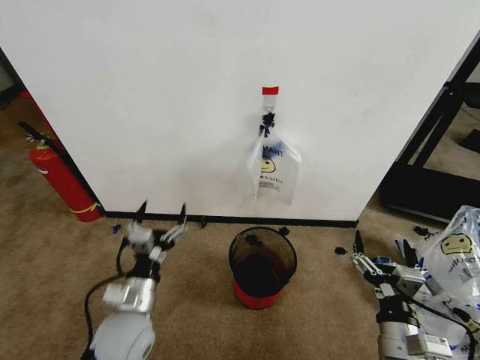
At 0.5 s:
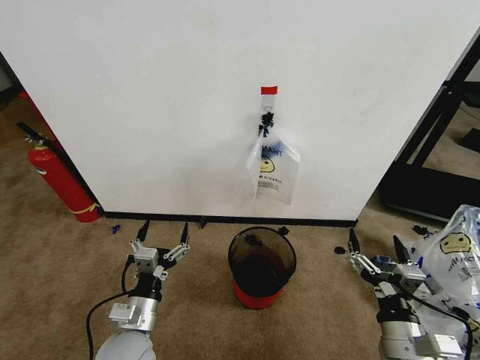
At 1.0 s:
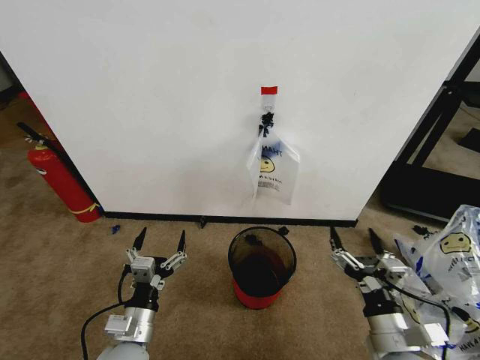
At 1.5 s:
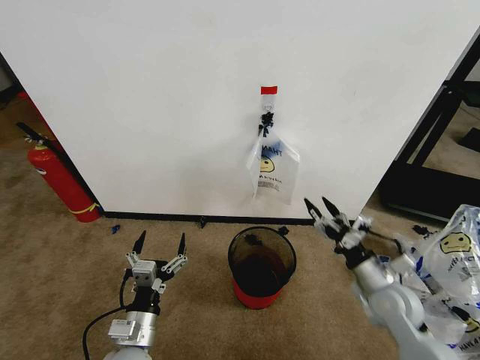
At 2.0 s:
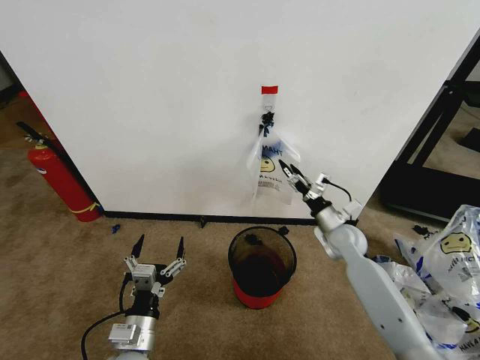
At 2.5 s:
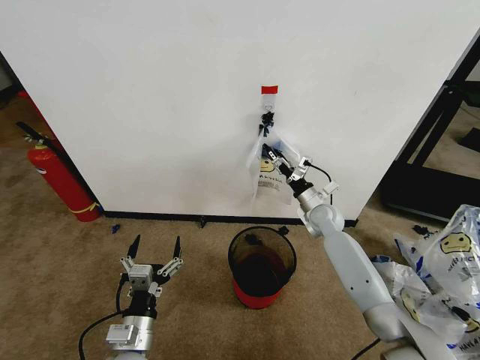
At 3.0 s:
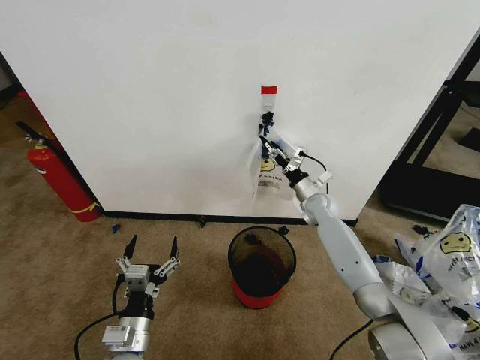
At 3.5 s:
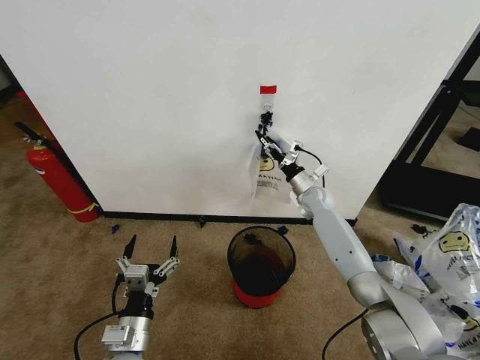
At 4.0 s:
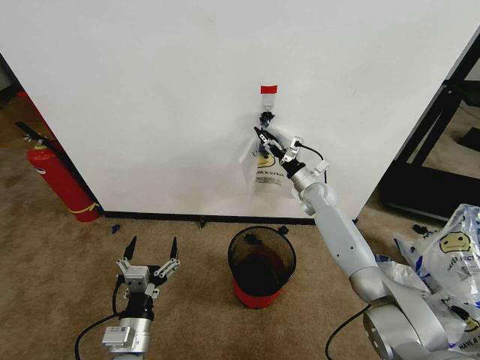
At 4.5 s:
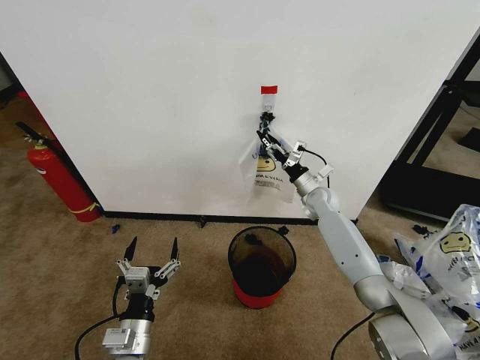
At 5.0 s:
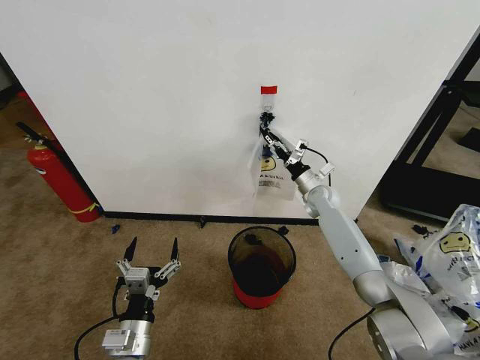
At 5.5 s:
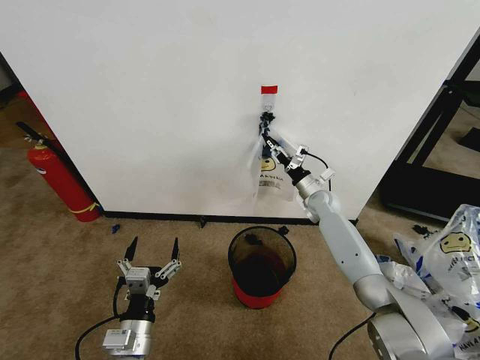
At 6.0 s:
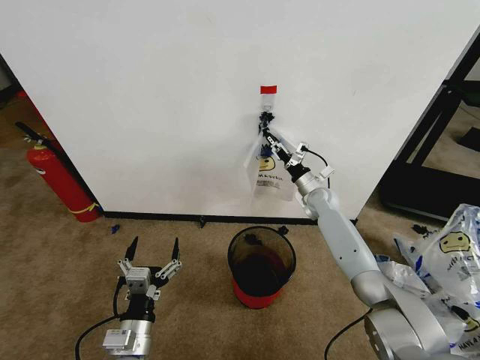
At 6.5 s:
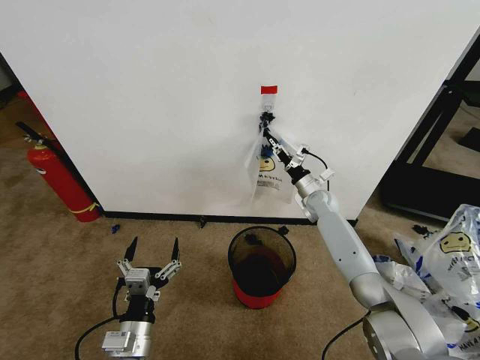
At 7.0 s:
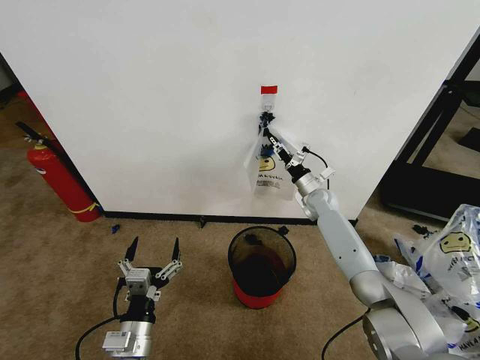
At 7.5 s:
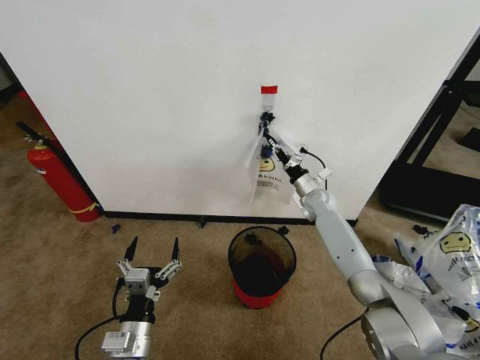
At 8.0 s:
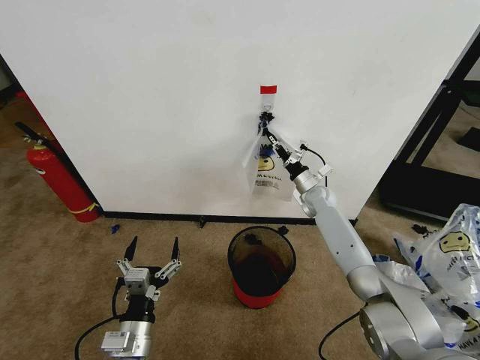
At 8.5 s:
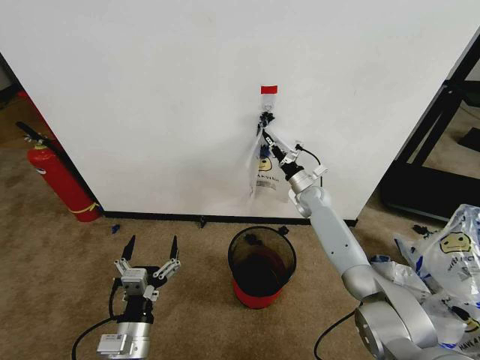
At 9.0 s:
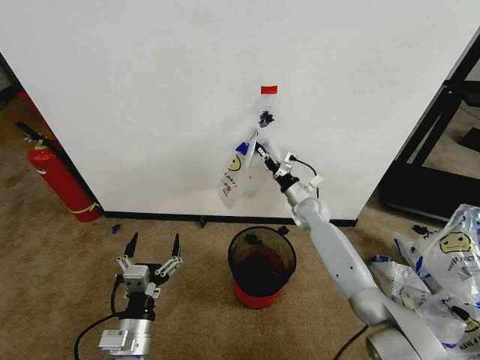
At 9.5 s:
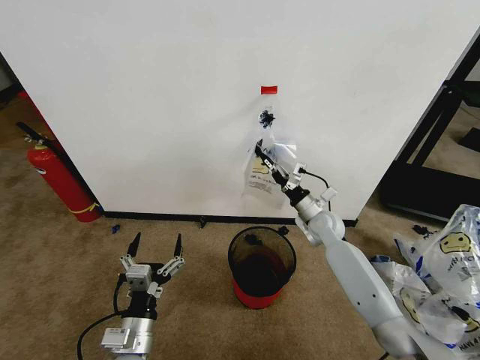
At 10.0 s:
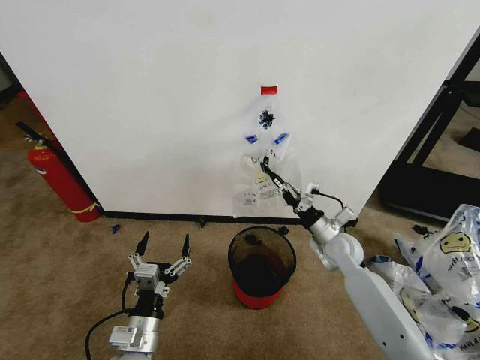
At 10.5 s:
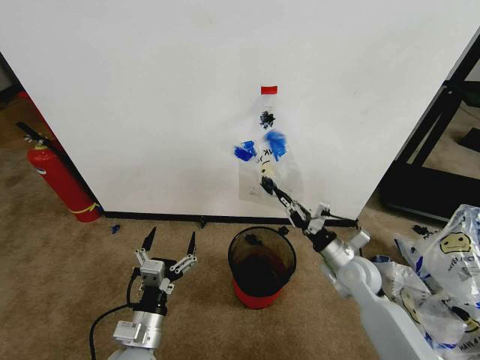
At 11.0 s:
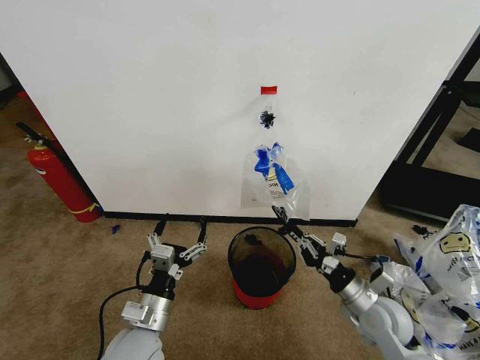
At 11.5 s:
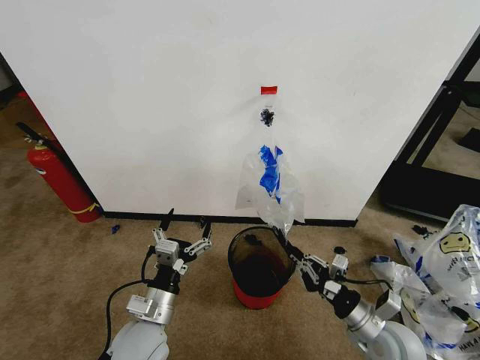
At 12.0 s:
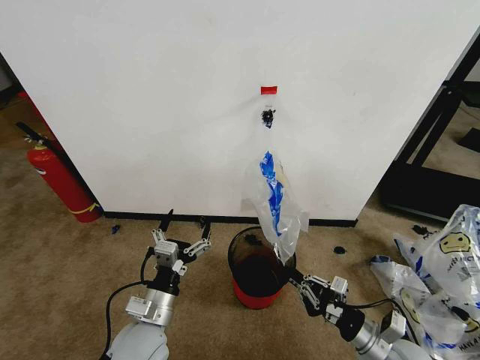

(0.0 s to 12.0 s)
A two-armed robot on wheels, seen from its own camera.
Task of the whole recording: Pick up the garbage bag from the wall and place it over the trash bin.
2.0 s - 4.0 s: The right gripper shifts approximately 15 cm forward.
4.0 s - 6.0 s: The right gripper closes up.
6.0 s - 8.0 s: The right gripper closes up.
8.0 s - 10.0 s: The right gripper is displaced backward by some 15 cm.
10.0 s - 12.0 s: The right gripper shifts approximately 25 cm backward. Meanwhile the left gripper shifts by approximately 5 cm.

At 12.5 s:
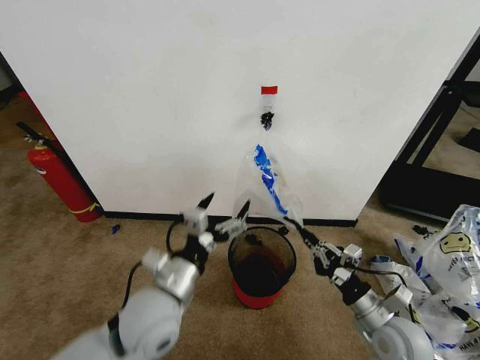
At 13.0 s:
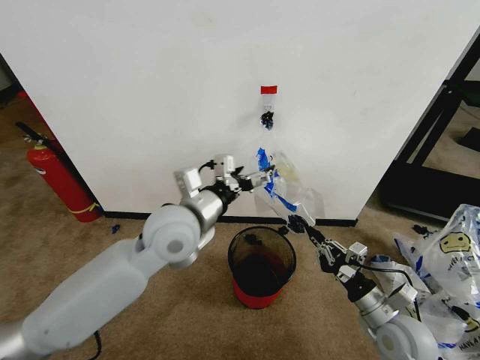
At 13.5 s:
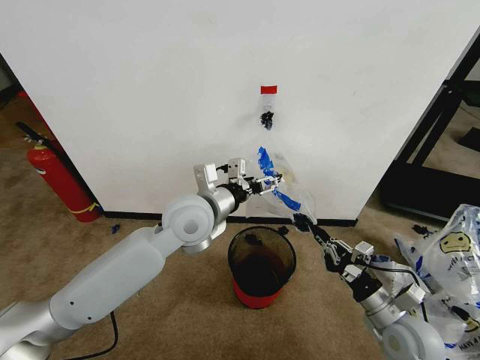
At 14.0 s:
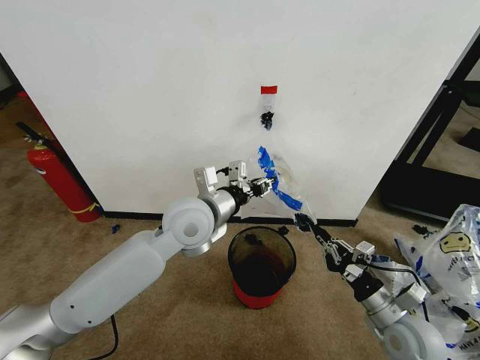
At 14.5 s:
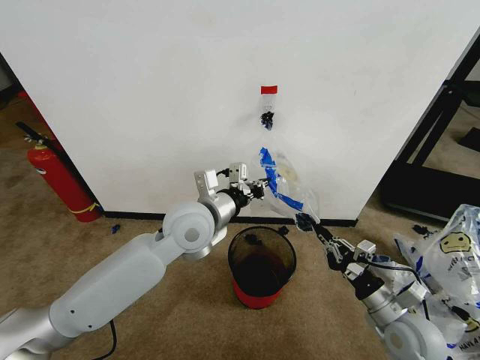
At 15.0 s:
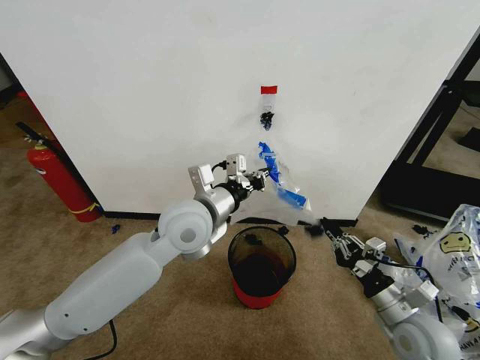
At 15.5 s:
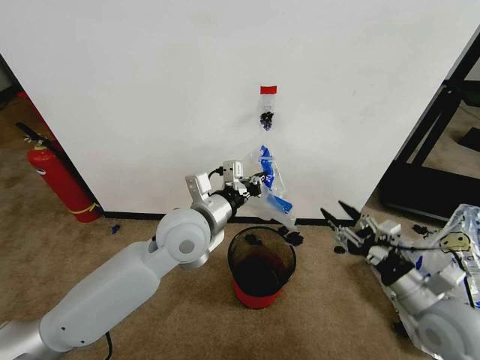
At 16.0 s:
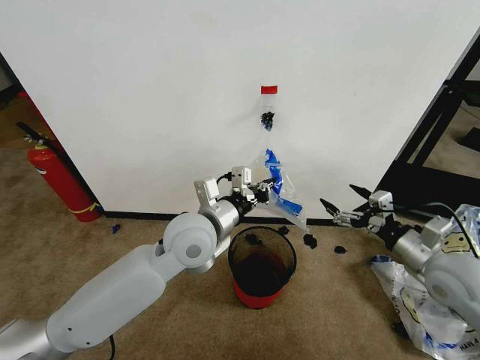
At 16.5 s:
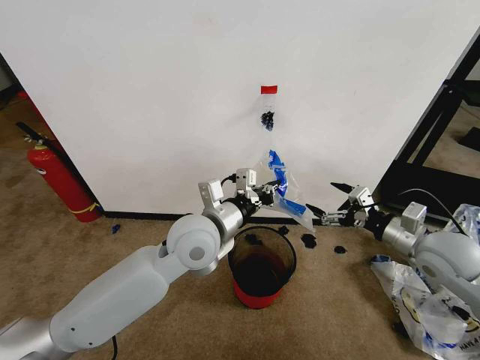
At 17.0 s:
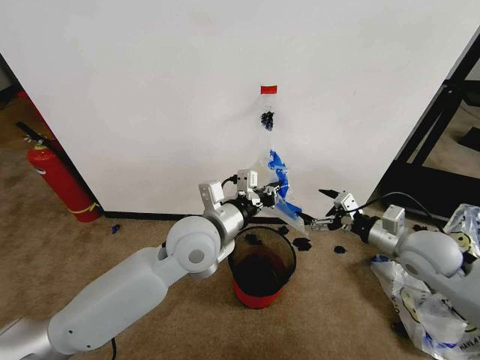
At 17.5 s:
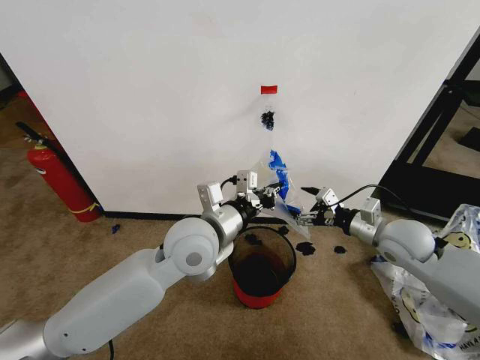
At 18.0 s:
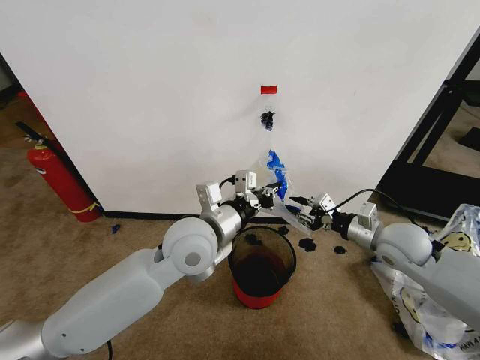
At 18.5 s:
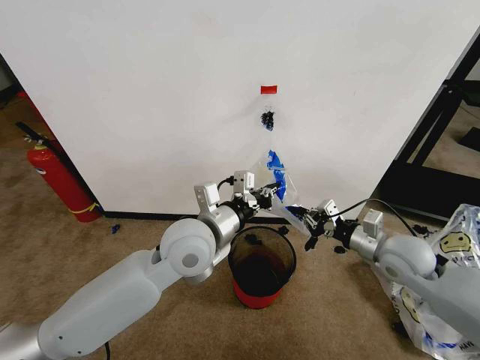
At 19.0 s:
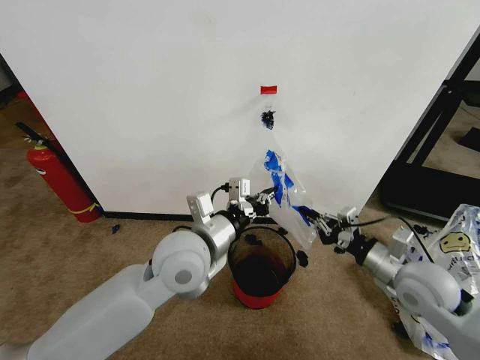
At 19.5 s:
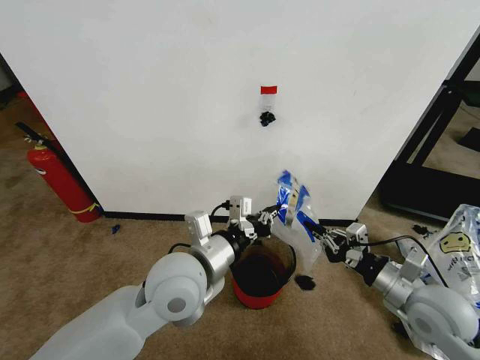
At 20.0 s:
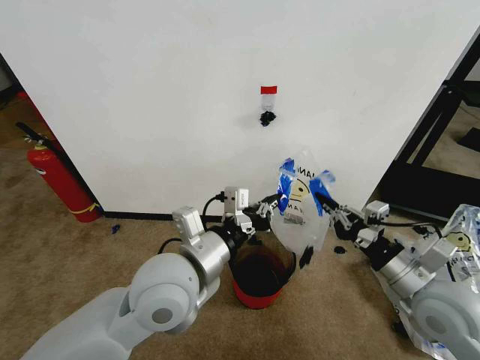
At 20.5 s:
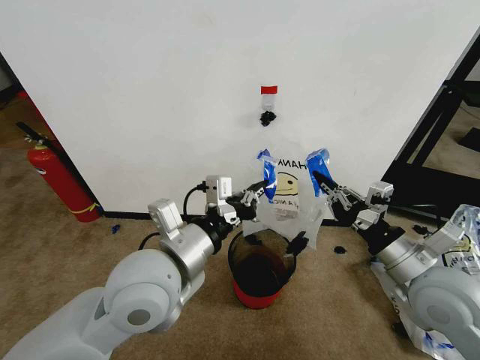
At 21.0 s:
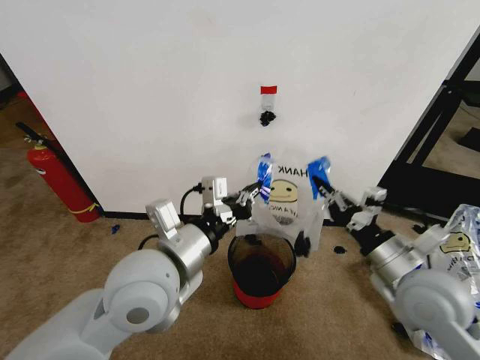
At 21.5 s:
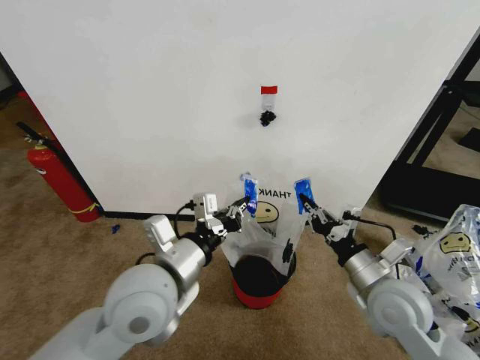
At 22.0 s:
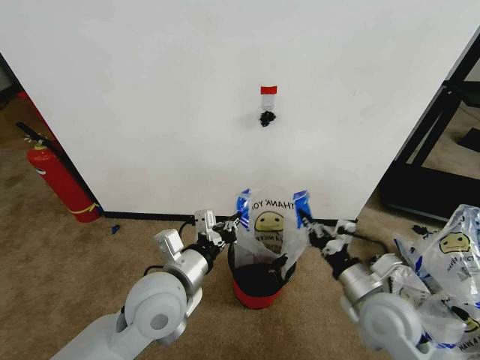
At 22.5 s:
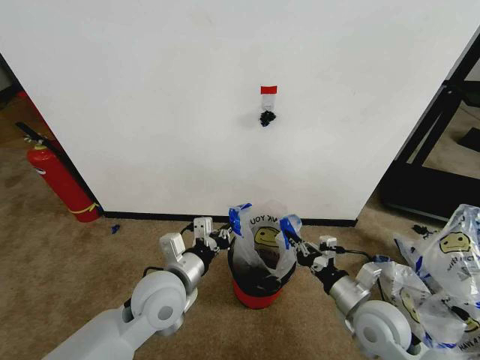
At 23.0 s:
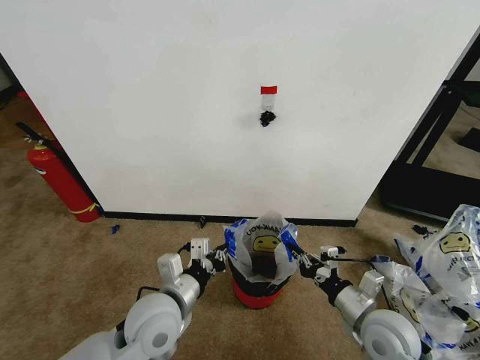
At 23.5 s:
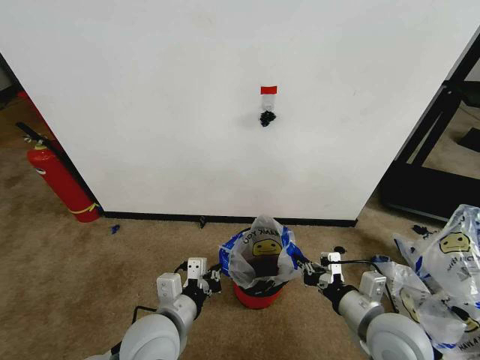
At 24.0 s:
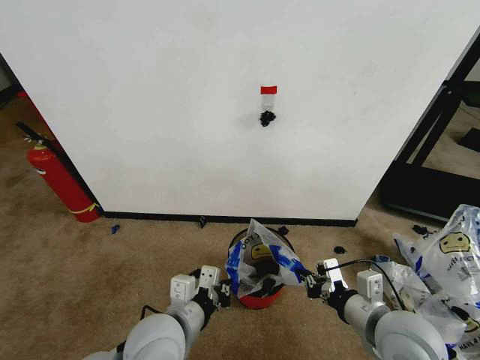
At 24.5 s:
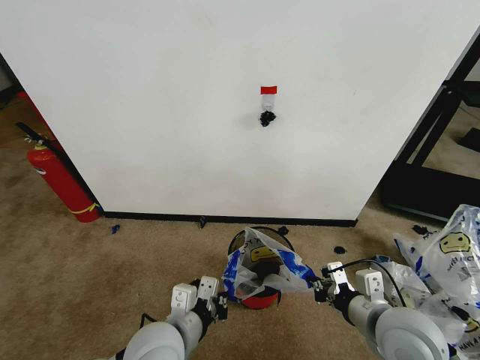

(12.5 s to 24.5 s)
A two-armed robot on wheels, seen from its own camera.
Task of the whole recording: Pick up the garbage bag from the wall and place it over the trash bin.
12.5 s - 14.5 s: The left gripper travels forward and upward by approximately 20 cm, and closes up.
14.5 s - 16.5 s: The right gripper goes some 15 cm upward and forward, and opens up.
16.5 s - 18.5 s: The right gripper moves approximately 5 cm, and closes.
18.5 s - 20.5 s: The right gripper is displaced backward and upward by roughly 15 cm, while the left gripper goes approximately 10 cm backward.
20.5 s - 22.5 s: Both grippers travel together downward, some 15 cm.
22.5 s - 24.5 s: The left gripper goes about 10 cm backward, while the right gripper heads upward, covering roughly 10 cm.

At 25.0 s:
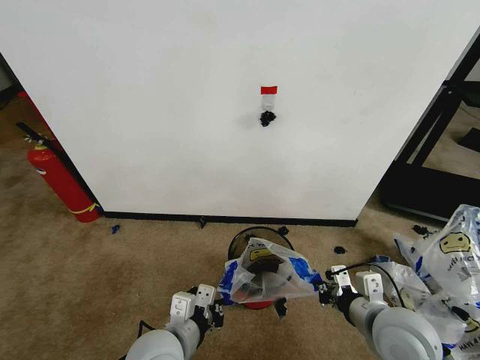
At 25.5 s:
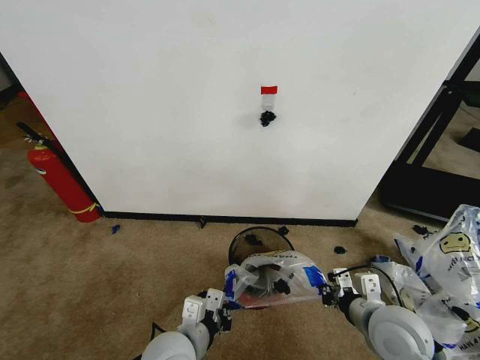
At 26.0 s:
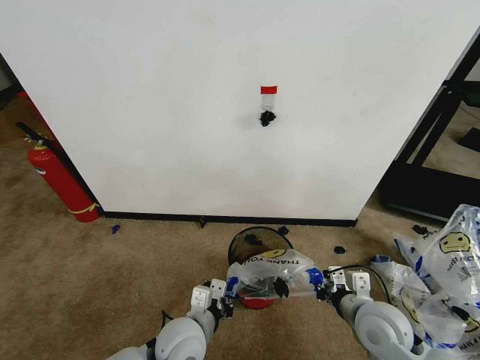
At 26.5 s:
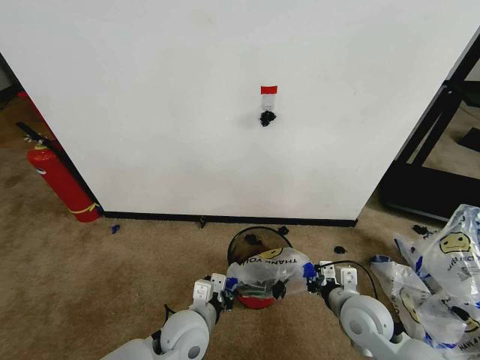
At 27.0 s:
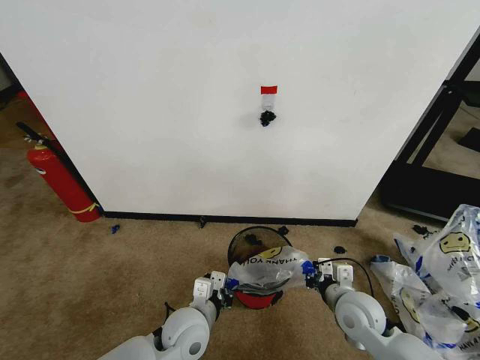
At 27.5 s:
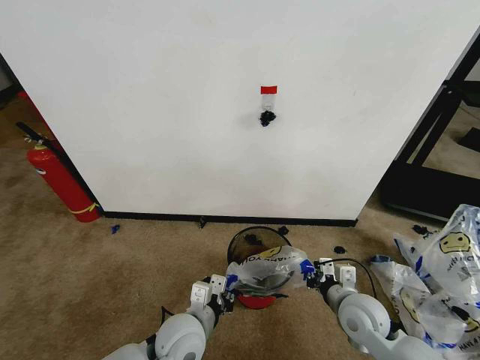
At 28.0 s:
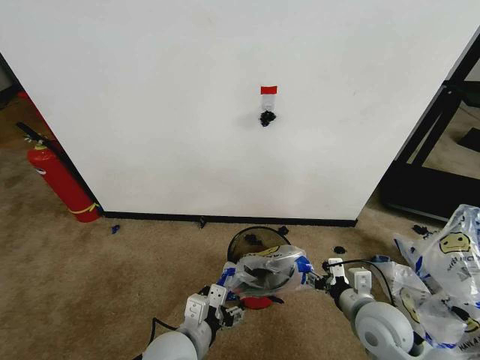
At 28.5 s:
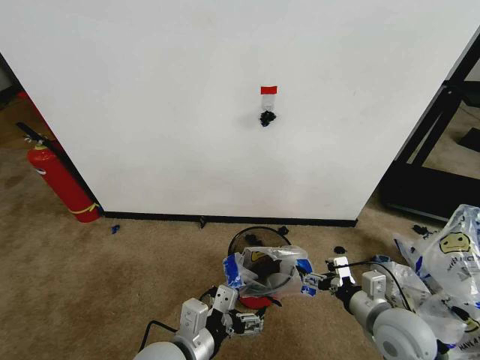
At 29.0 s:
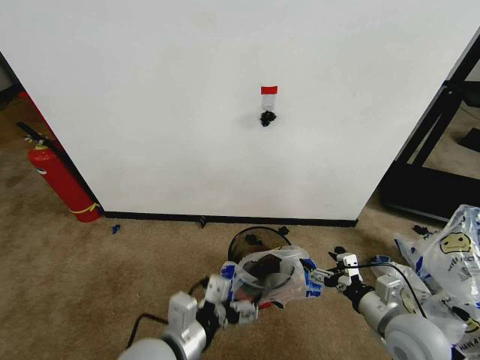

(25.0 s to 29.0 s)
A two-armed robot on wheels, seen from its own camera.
Task of the whole recording: Pick up the garbage bag from the wall and place it over the trash bin.
25.0 s - 27.0 s: Both grippers move downward and forward, approximately 10 cm.
27.0 s - 29.0 s: The left gripper shifts approximately 15 cm upward and backward, and opens its fingers. Meanwhile the right gripper moves to the right and backward, roughly 10 cm, and opens its fingers.
